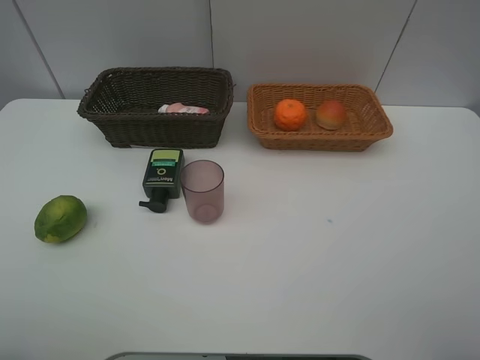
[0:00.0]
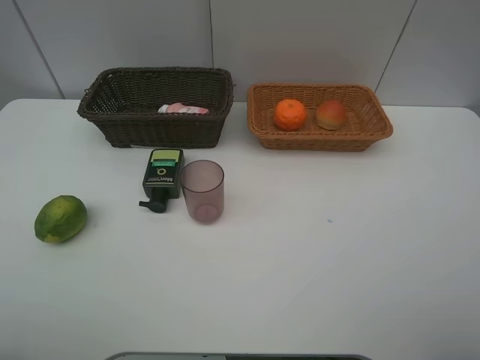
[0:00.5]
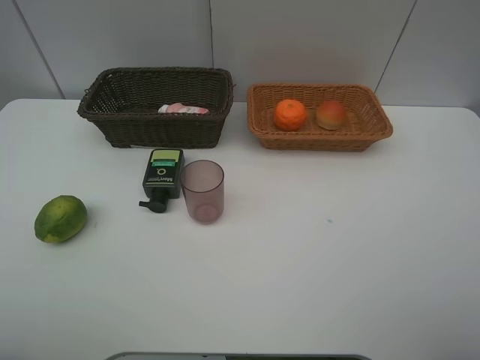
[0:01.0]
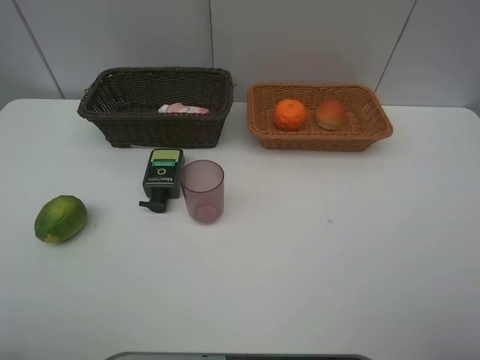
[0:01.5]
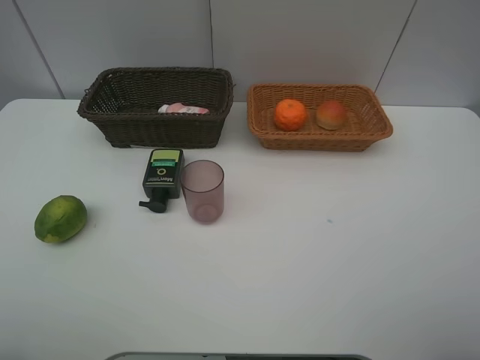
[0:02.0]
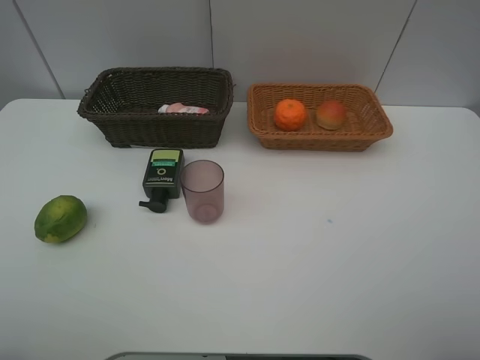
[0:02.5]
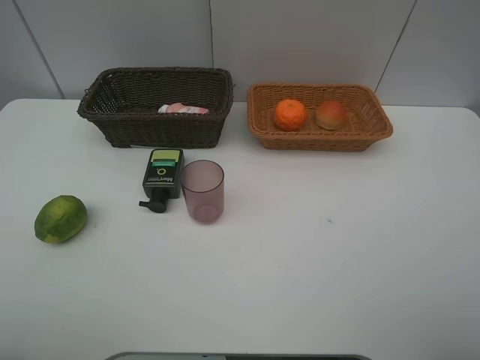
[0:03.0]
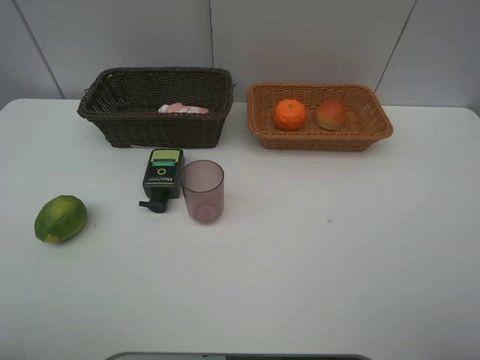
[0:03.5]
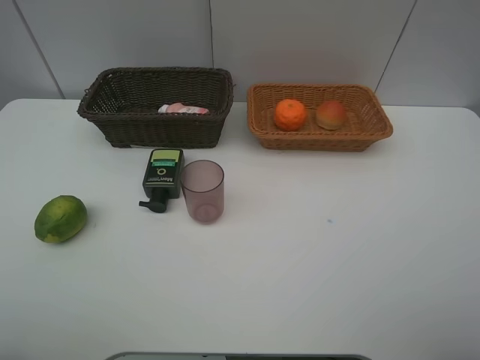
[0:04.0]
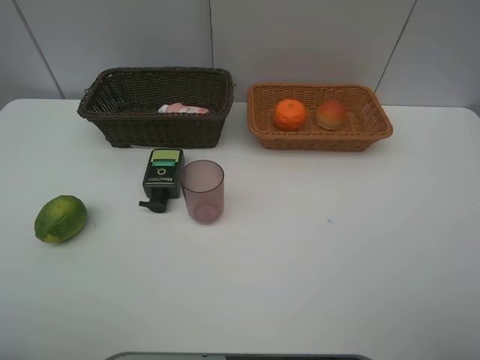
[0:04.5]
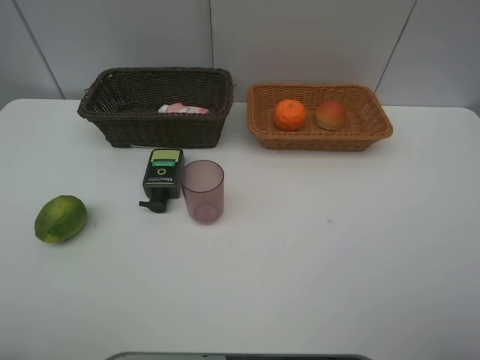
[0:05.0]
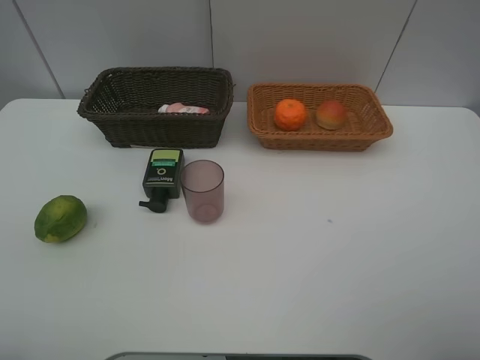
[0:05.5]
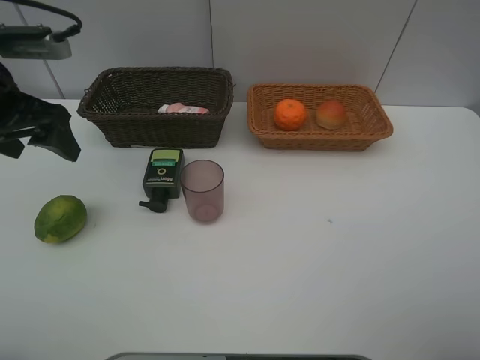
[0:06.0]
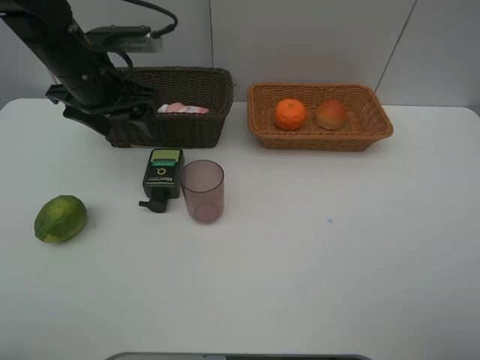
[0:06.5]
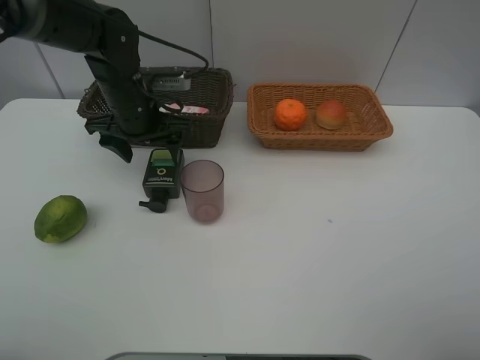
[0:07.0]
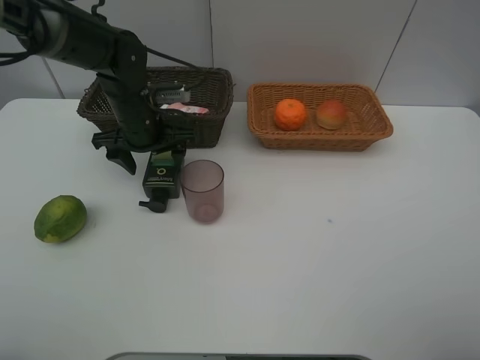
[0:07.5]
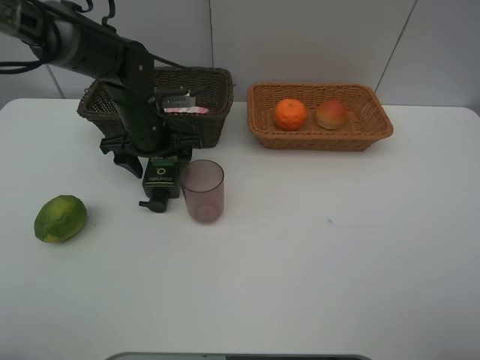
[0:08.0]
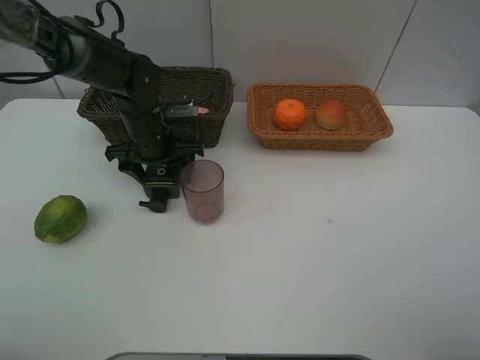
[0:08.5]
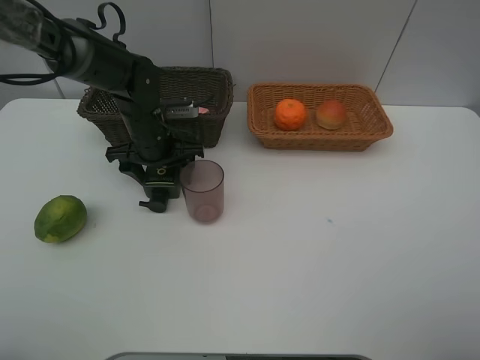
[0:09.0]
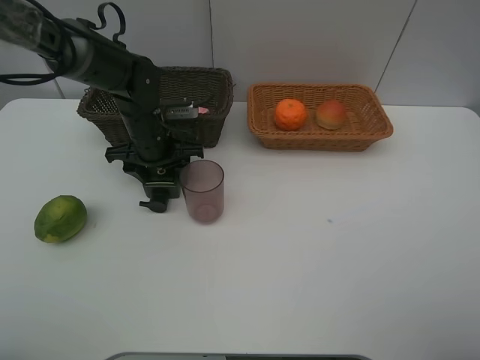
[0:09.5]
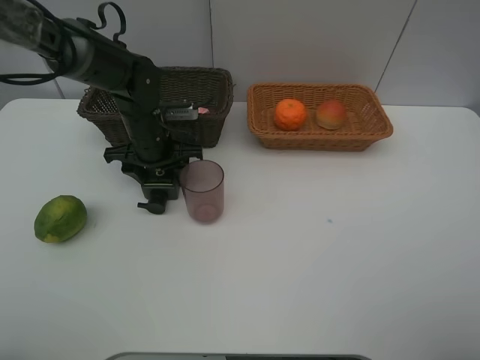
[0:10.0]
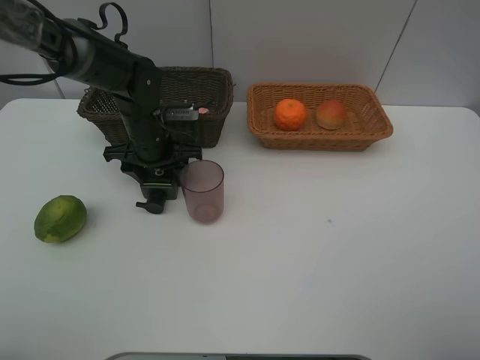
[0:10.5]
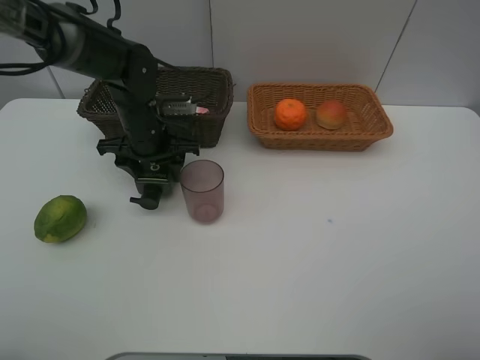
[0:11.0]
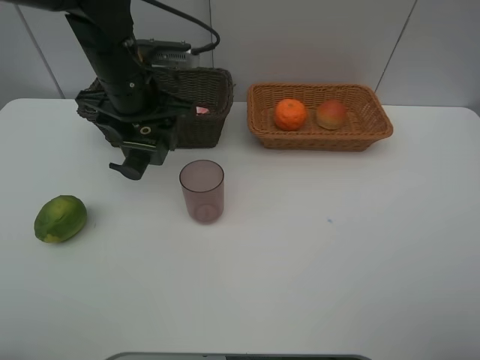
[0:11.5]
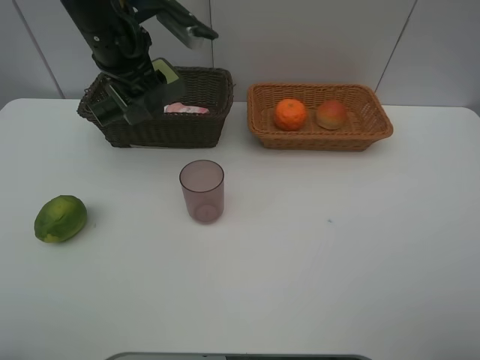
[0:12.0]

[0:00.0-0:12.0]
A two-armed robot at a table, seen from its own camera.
Task of the whole recording: place multiple objects separately in different baskets.
0:02.0 to 0:04.0: Neither gripper changes place.
0:04.0 to 0:06.0: The left gripper is displaced forward by about 25 cm.
0:06.0 to 0:08.0: The left gripper shifts roughly 20 cm downward, to the right and forward.
0:08.0 to 0:10.0: The grippers make only small movements.
0:10.0 to 0:12.0: The left gripper shifts some 15 cm upward.

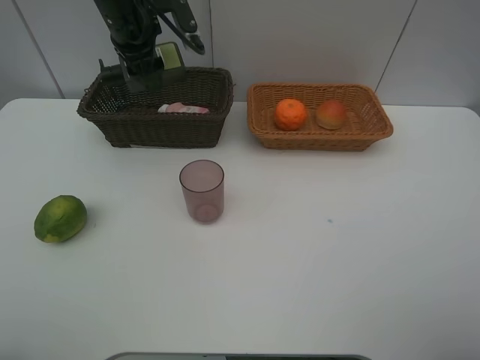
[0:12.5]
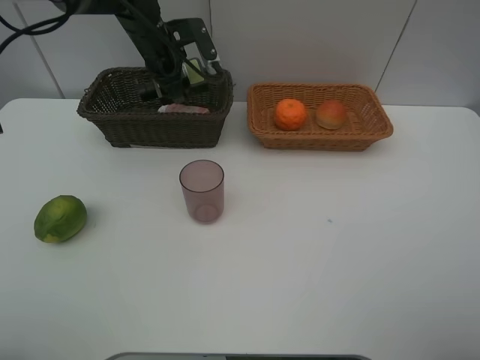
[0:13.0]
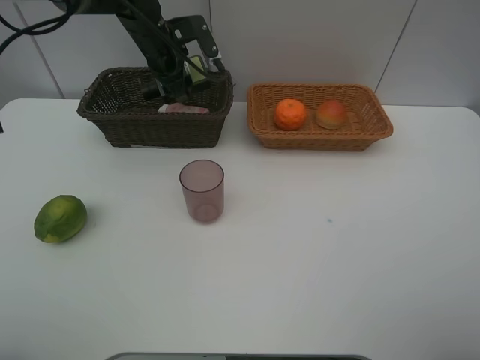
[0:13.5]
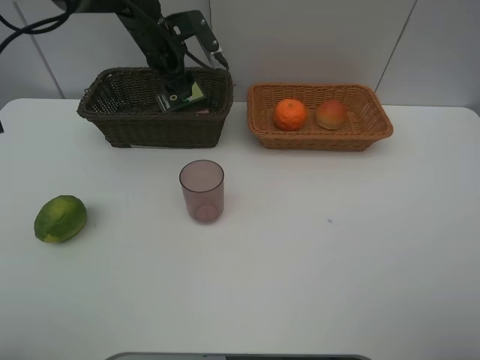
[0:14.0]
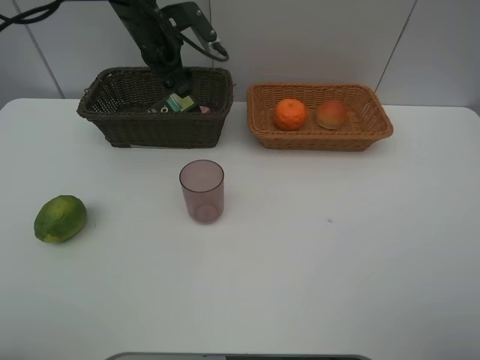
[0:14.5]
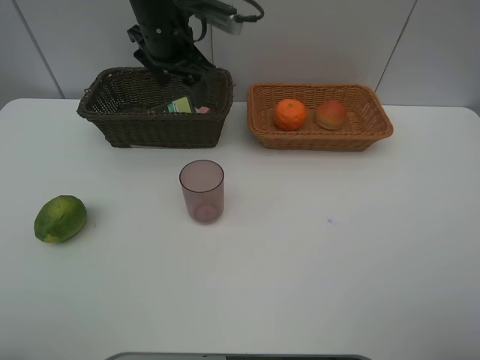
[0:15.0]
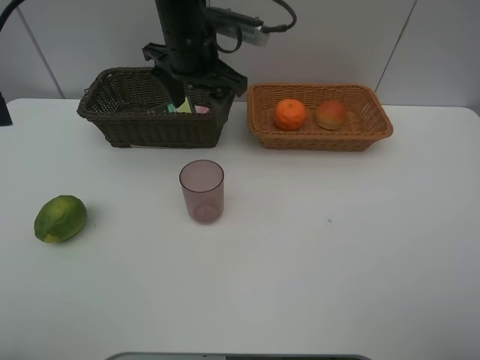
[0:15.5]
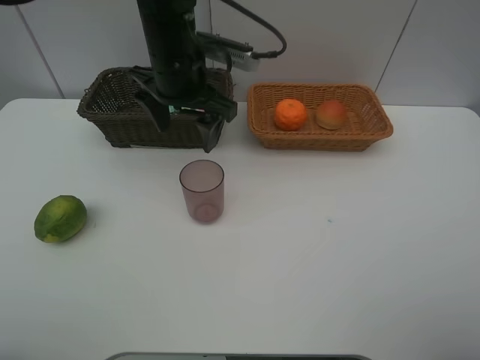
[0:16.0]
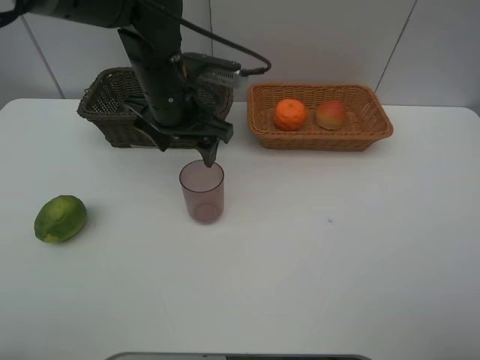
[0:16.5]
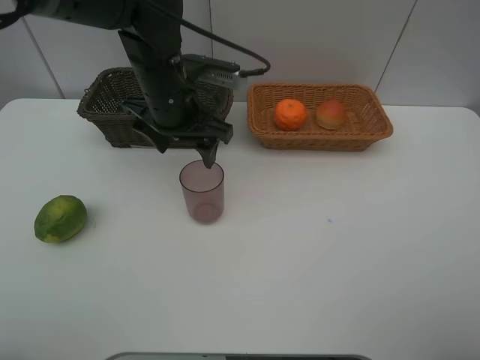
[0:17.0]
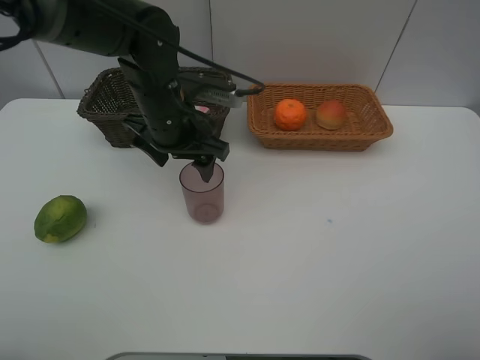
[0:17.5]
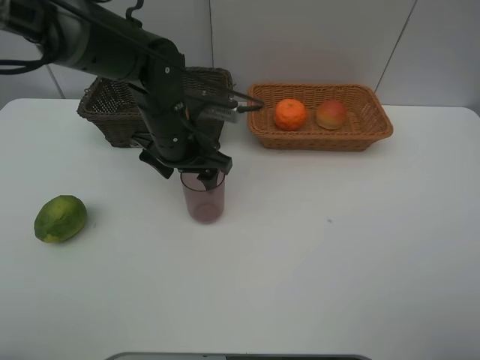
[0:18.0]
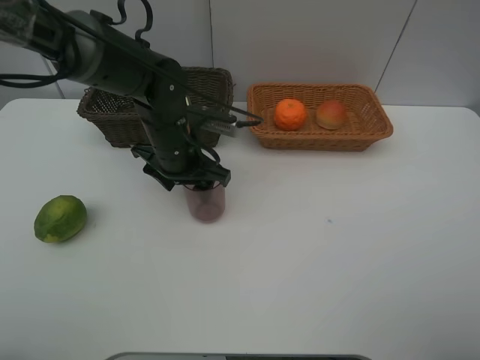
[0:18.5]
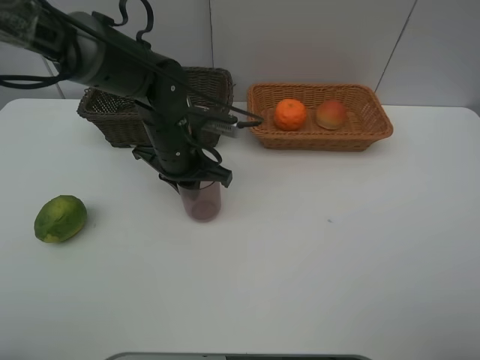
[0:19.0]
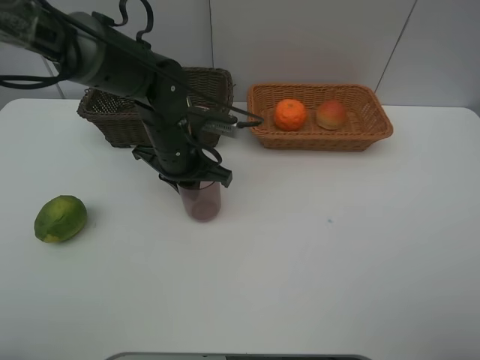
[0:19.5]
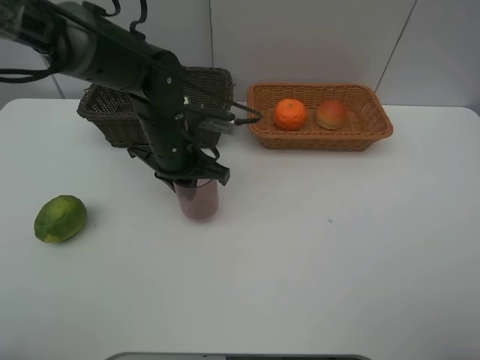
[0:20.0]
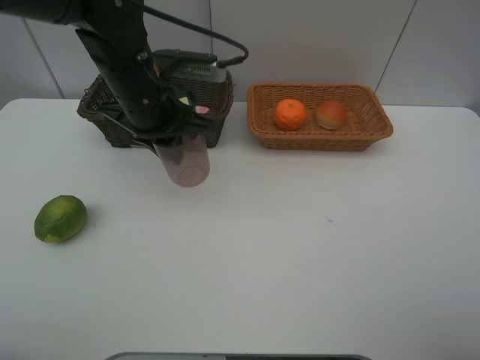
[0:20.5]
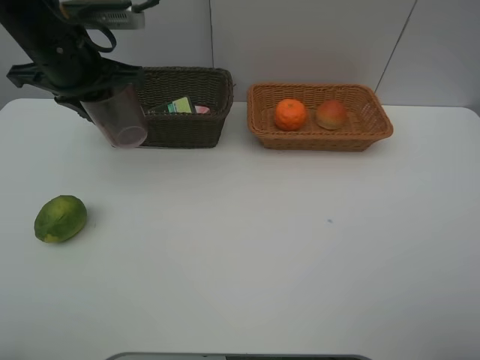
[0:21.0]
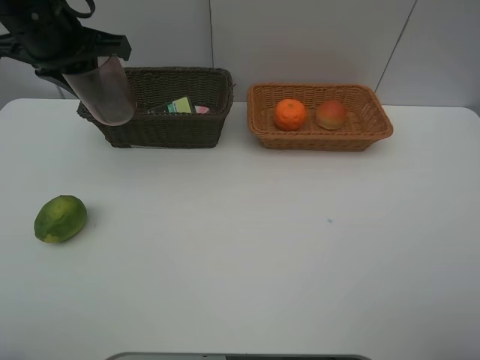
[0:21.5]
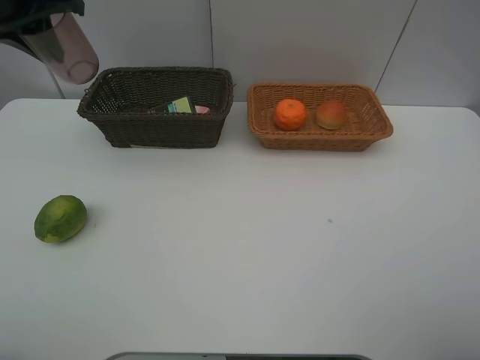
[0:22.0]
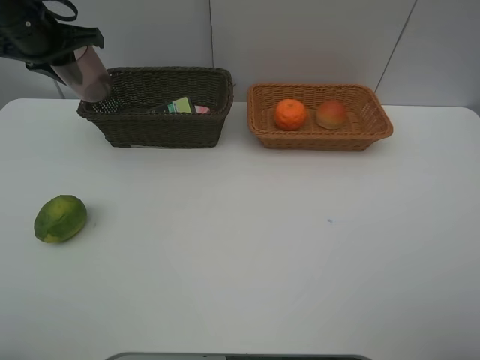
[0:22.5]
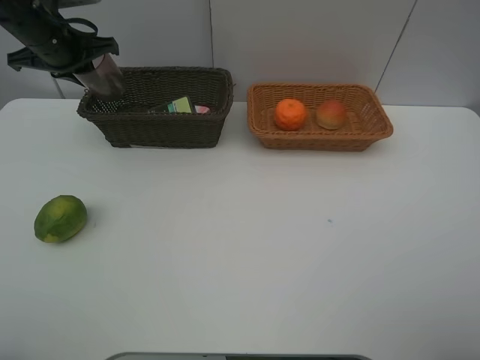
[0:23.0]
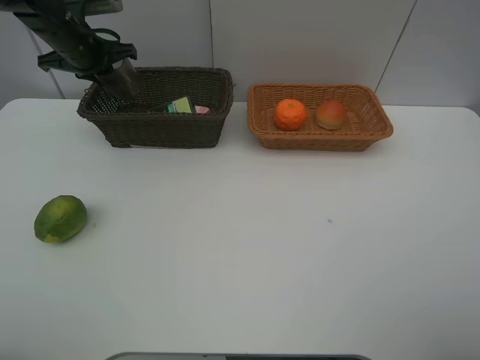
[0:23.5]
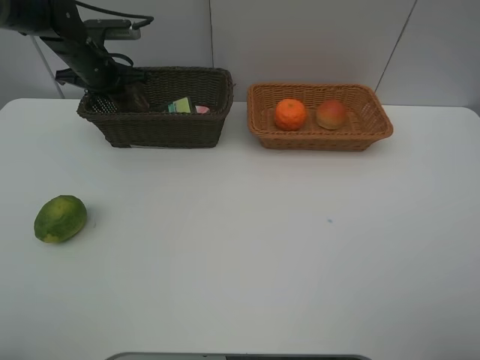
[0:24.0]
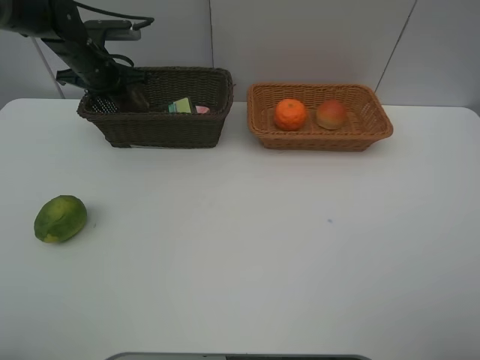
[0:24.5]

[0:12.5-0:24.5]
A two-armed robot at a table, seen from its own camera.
Task of the whole recording: place multiple objects separately in different baskets.
0:12.5 to 0:14.5: The left gripper changes place by some 5 cm.
0:14.5 to 0:16.5: The left gripper travels backward by approximately 15 cm.
0:16.5 to 0:18.5: The left gripper moves downward, about 10 cm.
0:18.5 to 0:20.5: The left gripper is displaced upward by about 10 cm, and closes.
0:20.5 to 0:22.5: The left gripper is displaced to the left and forward by approximately 20 cm.
0:22.5 to 0:24.5: The left gripper travels downward and forward by approximately 10 cm.

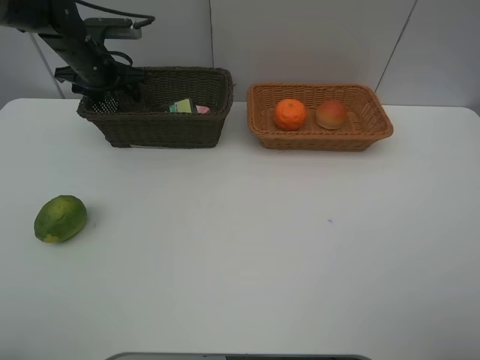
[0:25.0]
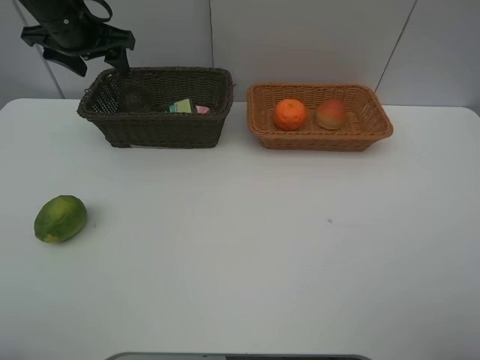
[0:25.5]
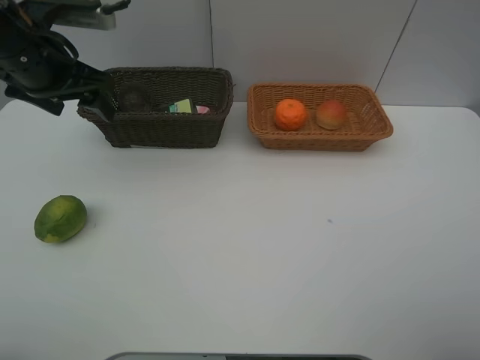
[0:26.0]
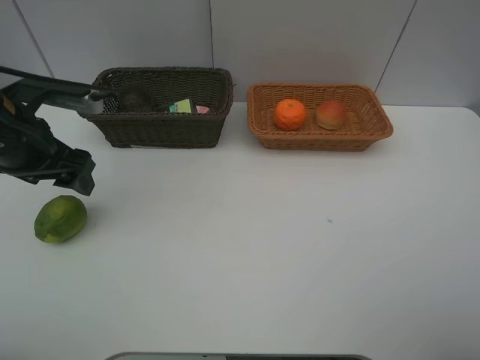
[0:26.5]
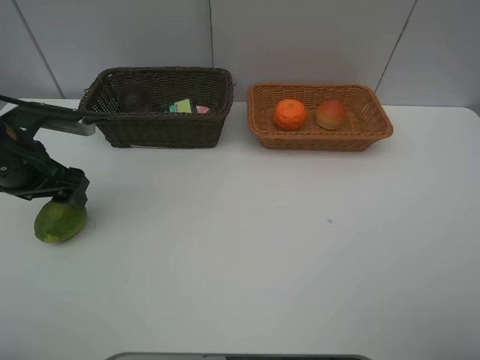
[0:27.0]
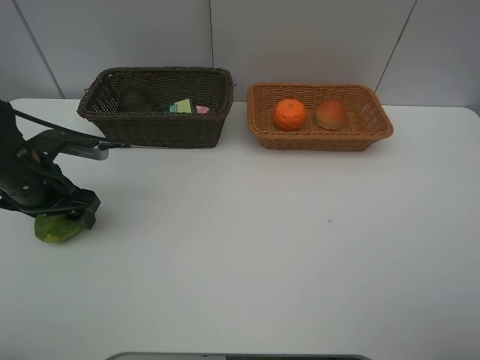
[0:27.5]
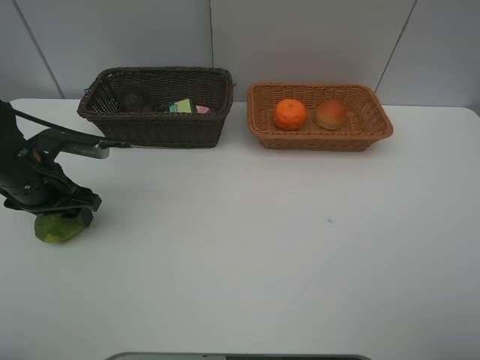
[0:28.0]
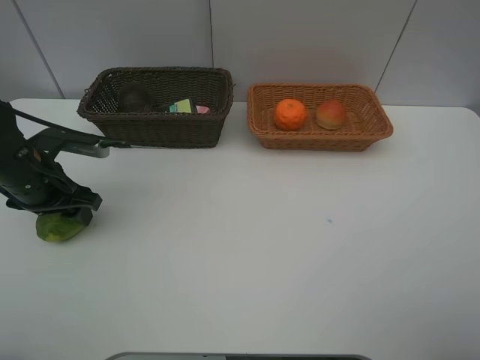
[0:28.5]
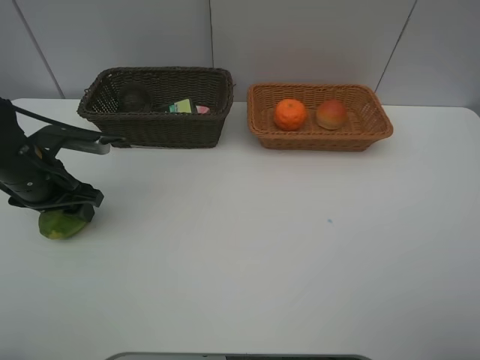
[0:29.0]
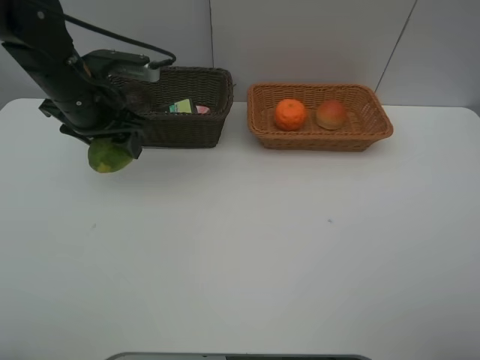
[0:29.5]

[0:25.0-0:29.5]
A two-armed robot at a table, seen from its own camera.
Task of the whole recording: place multiple objects separately in different baskets.
0:25.0 to 0:27.0: The left gripper goes roughly 20 cm backward.
0:27.0 to 0:29.5: The left gripper moves to the right and forward, approximately 10 cm.
